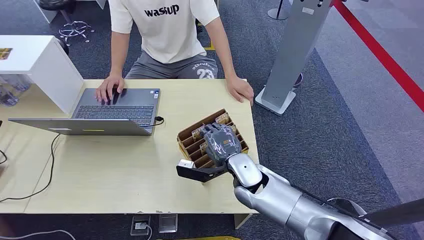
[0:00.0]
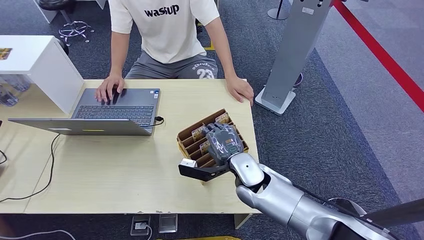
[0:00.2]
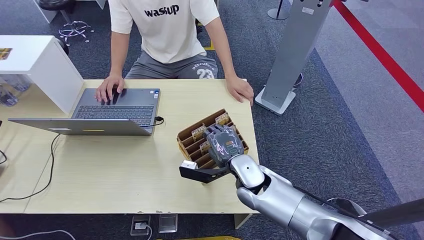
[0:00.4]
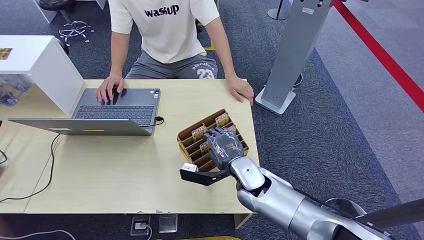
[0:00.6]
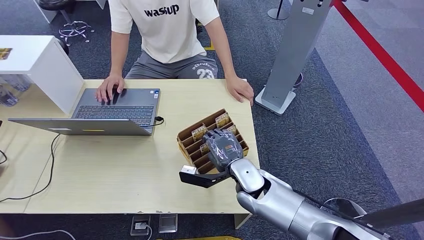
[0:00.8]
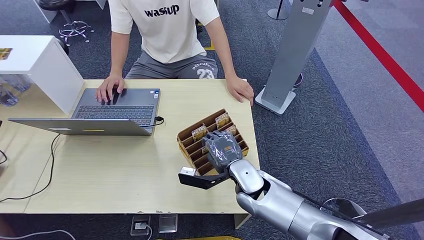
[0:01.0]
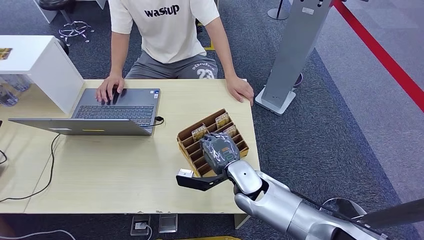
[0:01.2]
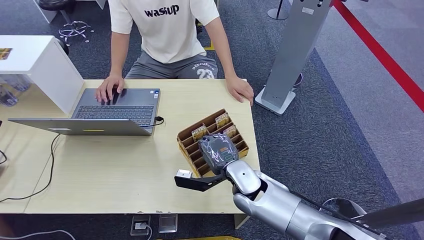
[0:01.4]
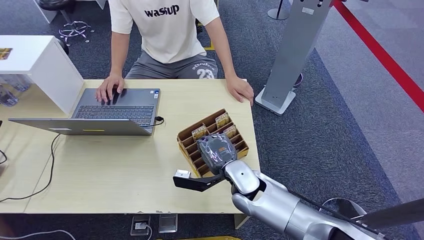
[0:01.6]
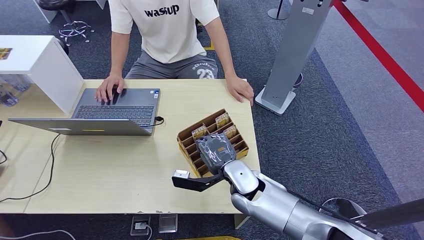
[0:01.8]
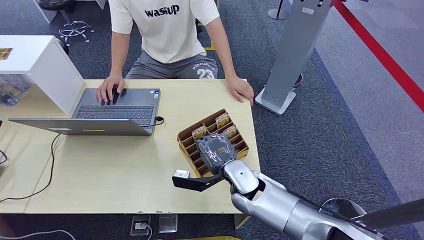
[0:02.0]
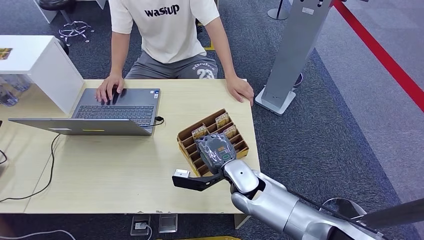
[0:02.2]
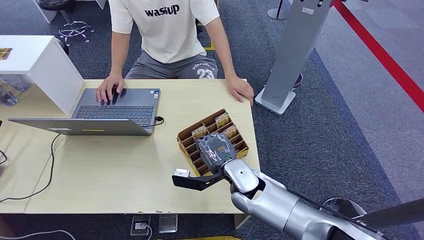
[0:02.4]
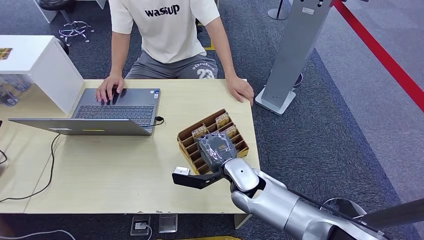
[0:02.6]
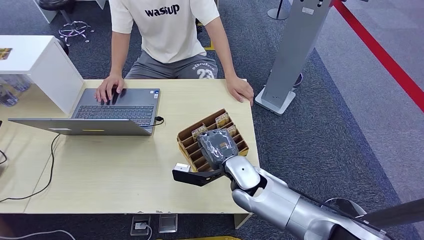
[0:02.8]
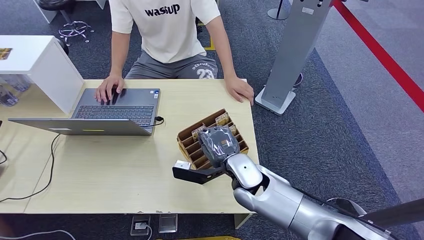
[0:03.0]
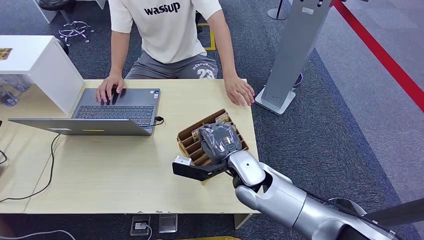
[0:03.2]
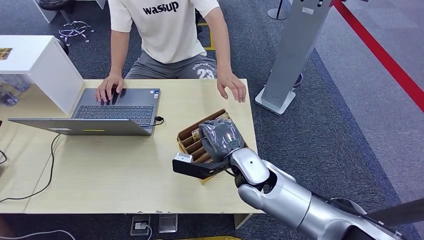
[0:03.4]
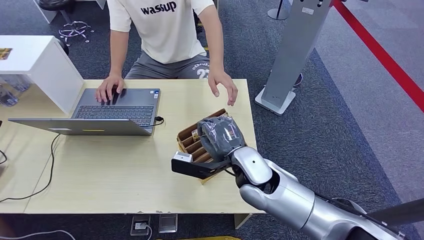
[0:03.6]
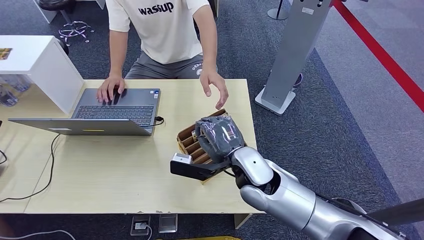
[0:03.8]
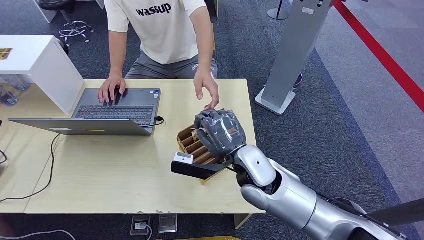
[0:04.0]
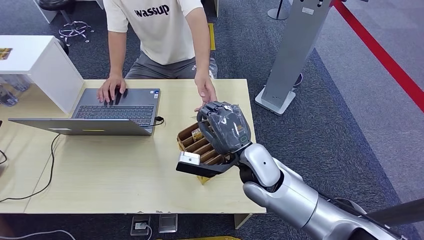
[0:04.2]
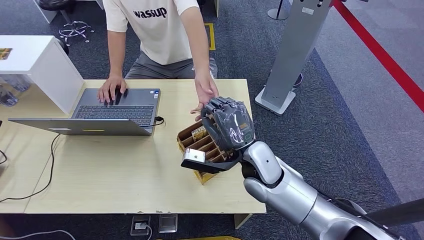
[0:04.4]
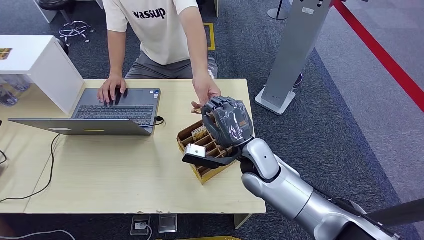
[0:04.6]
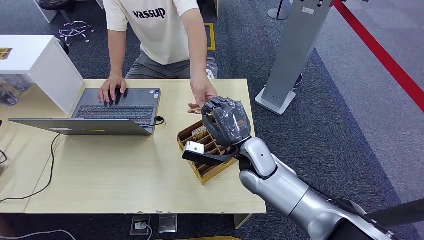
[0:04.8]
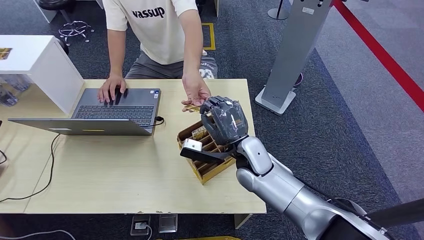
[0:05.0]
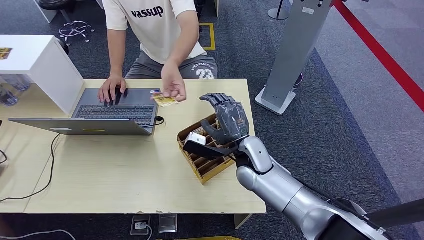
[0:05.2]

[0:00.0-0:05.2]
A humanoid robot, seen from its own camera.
Step, 0:00.0 to 0:03.0: Pick up the key card from the card box.
Step, 0:03.6 to 0:05.2: Hand the key card to the target.
0:01.8 to 0:03.4: The right hand travels upward by roughly 5 cm.

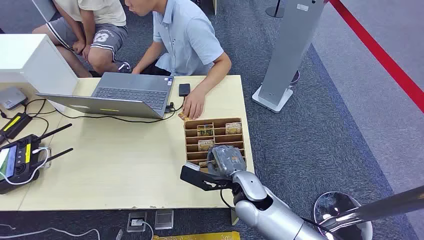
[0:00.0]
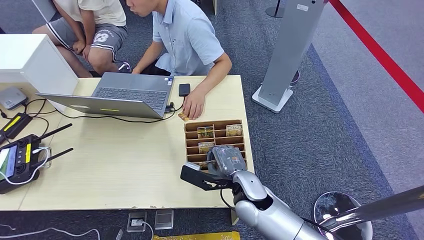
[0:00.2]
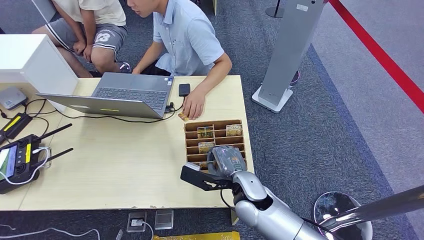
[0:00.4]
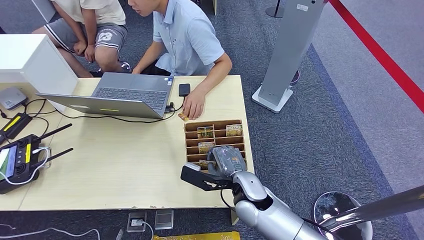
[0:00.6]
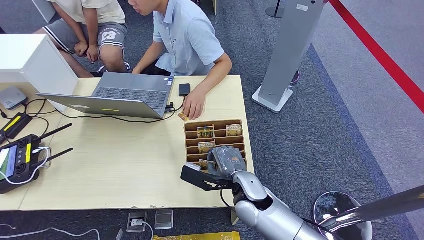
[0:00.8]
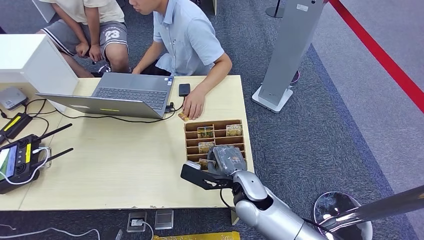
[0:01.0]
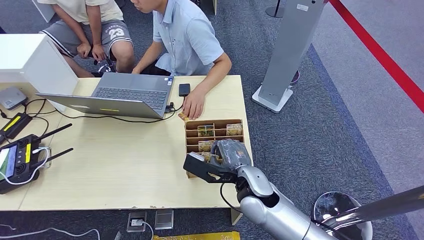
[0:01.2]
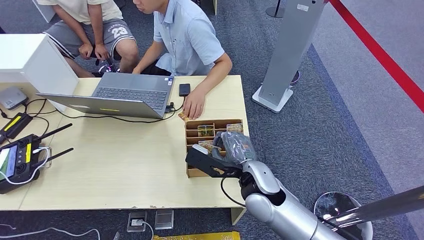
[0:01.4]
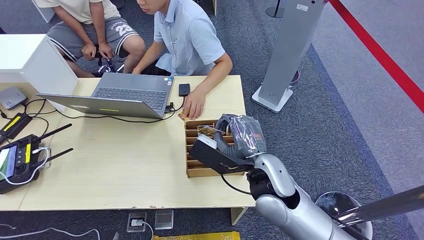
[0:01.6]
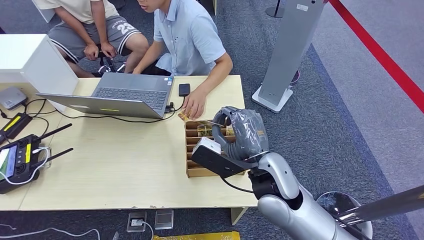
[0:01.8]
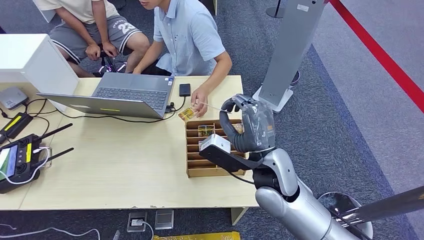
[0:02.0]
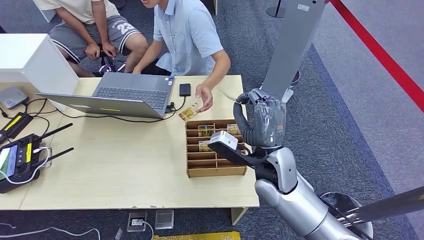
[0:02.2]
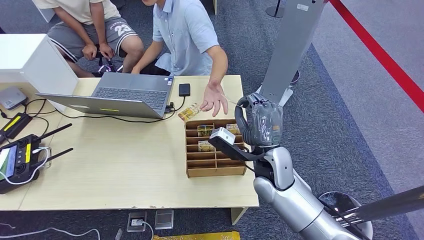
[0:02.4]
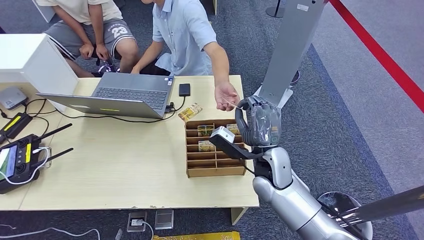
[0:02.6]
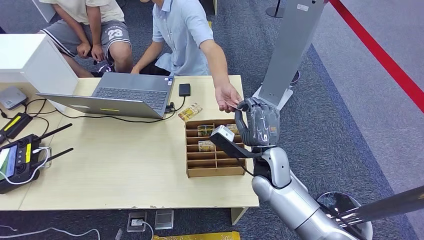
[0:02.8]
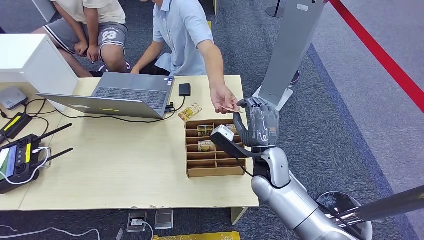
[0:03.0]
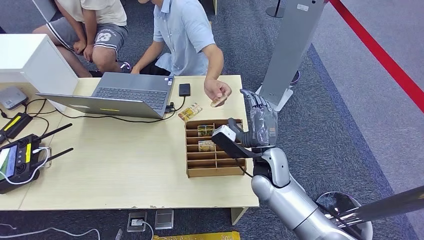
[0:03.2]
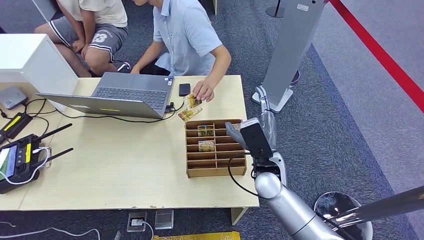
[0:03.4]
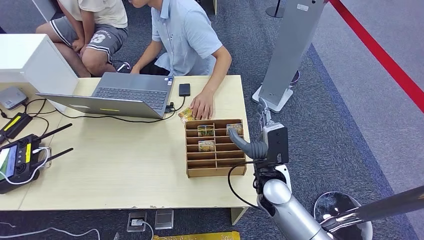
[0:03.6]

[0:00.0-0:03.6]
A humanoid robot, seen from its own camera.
Step, 0:00.0 to 0:01.6: Pick up the key card from the card box.
Step, 0:02.2 to 0:03.6: Hand the key card to the target.
0:01.8 to 0:03.6: The right hand heads downward, covering some 10 cm.
